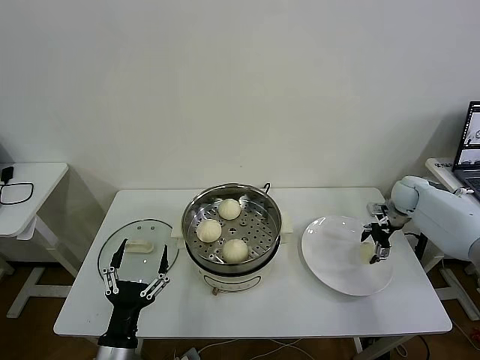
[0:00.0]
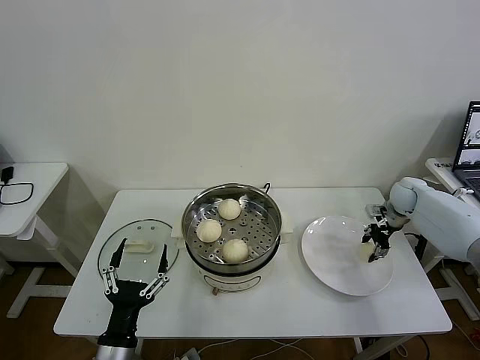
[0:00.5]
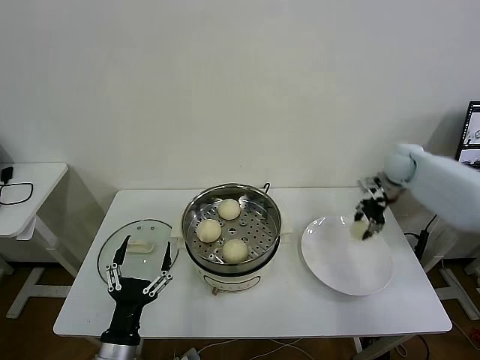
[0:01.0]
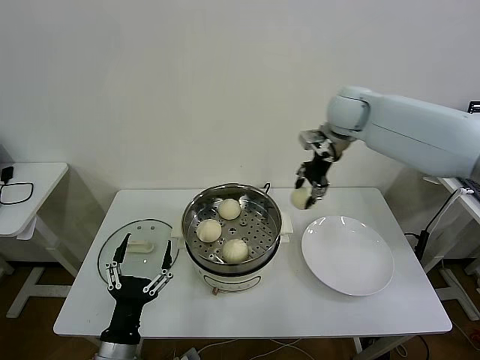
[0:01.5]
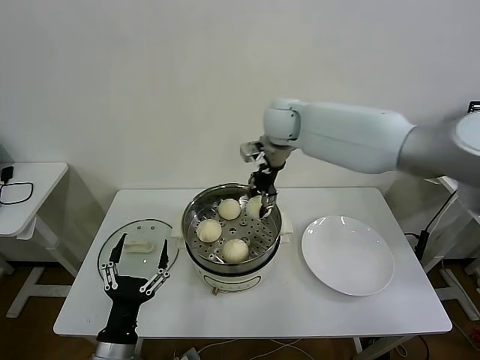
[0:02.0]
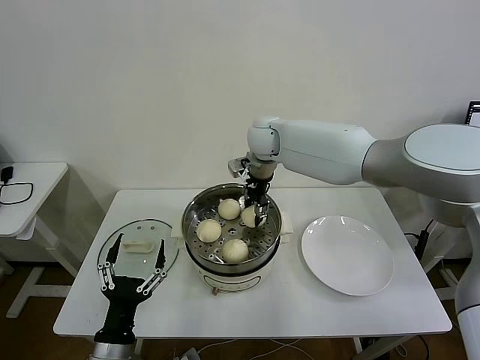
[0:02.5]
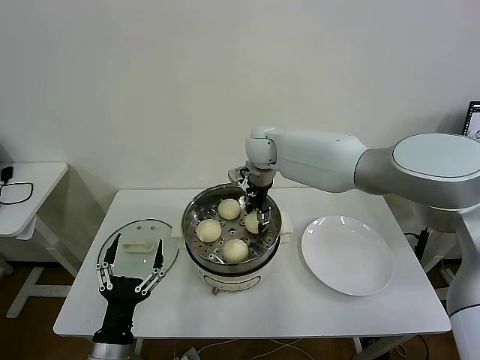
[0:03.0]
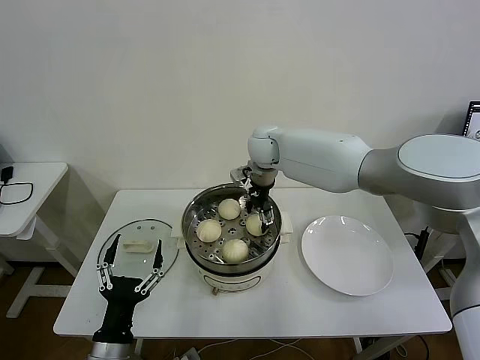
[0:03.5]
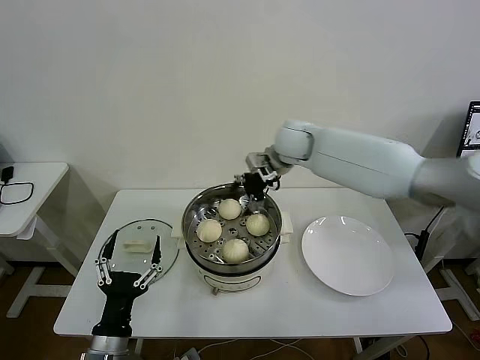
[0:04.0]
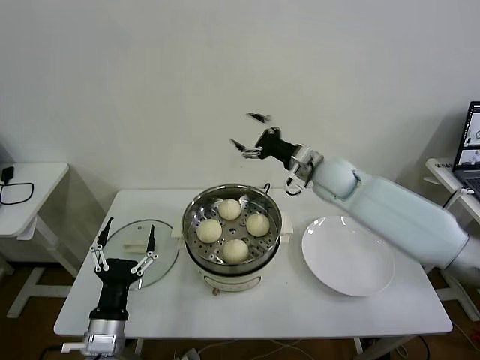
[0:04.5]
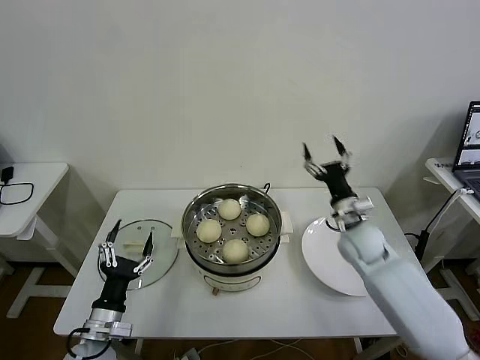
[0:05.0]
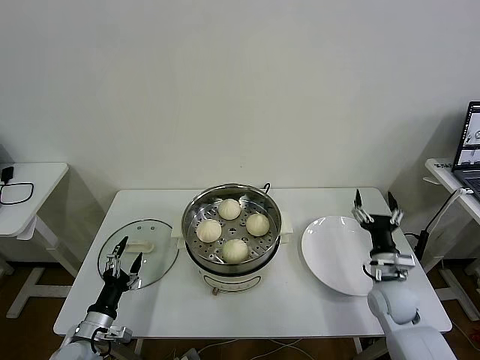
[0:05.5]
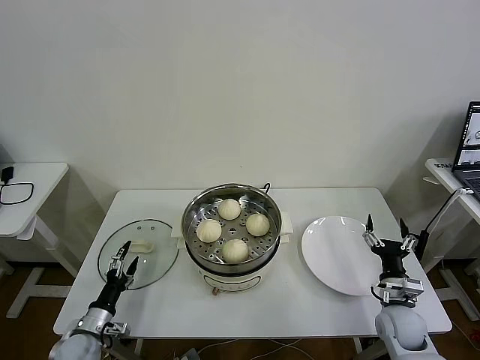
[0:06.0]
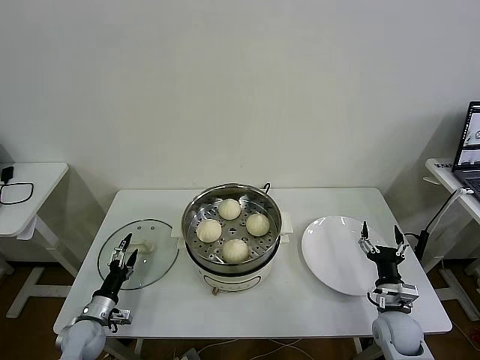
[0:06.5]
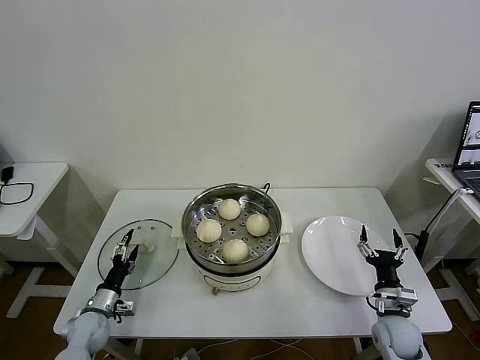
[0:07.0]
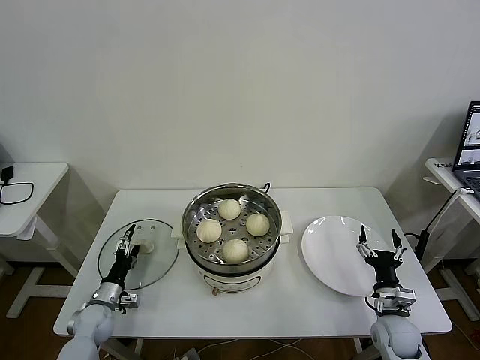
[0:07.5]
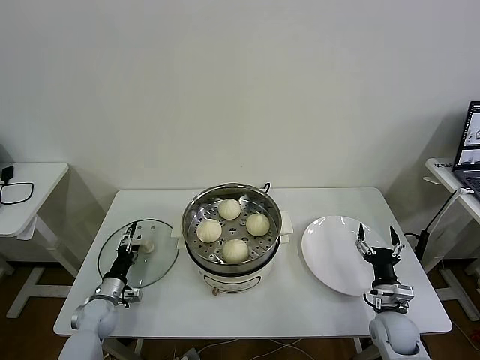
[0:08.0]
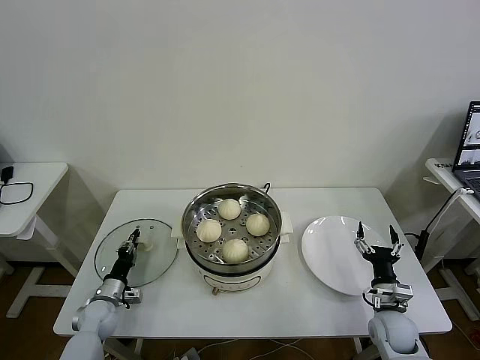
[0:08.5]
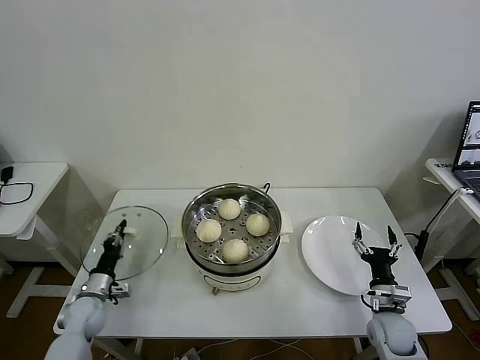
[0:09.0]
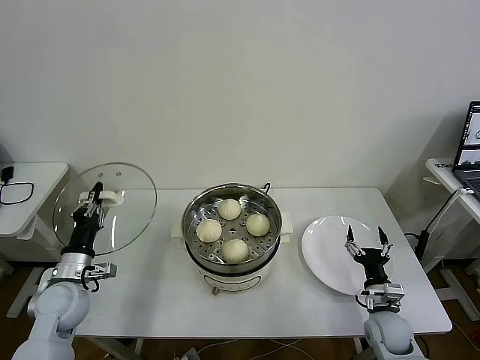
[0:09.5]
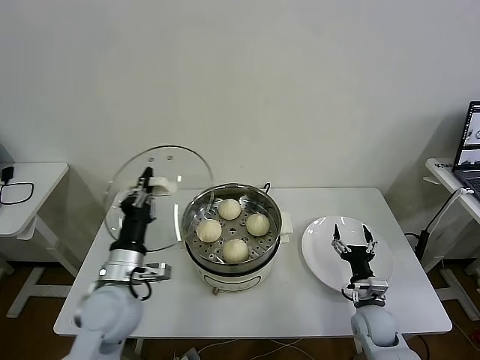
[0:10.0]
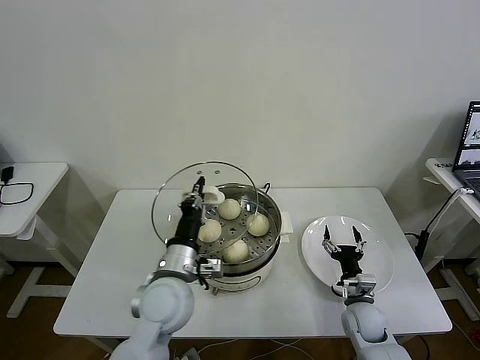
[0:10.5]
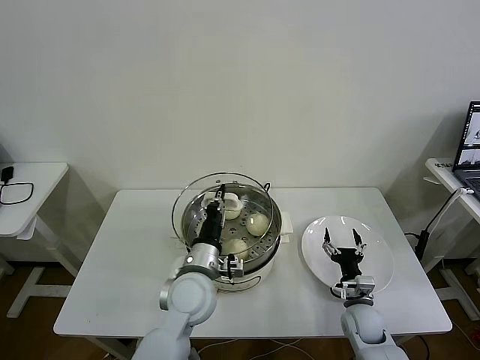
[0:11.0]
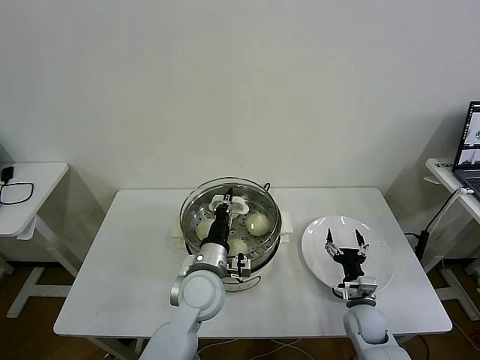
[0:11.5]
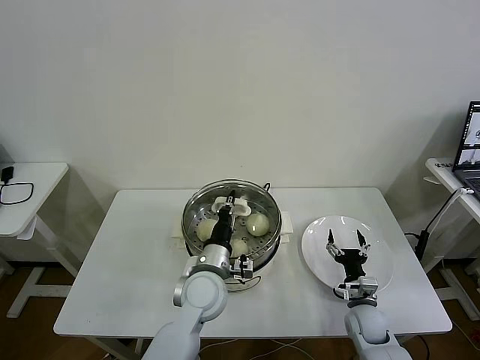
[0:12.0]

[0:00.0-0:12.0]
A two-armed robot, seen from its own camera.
Task of the whole recording: take steamed baozi put them in steamer then cover it.
Step, 0:01.0 to 0:03.5: Place the baozi on the steamer with right gripper.
Step, 0:04.0 to 0:08.5: Grasp the pot lid with left gripper.
0:00.0 to 0:02.0: The right gripper travels to the left and upward by about 40 cm, and closes.
0:02.0 to 0:04.0: The right gripper moves some 5 cm, and opens its fingers.
0:04.0 to 0:06.0: The left gripper heads downward, to the left and forward, covering roughly 20 cm, while the right gripper heads downward, backward and to the right, covering about 50 cm.
0:06.0 to 0:08.0: The left gripper heads forward, covering roughly 10 cm.
0:08.0 to 0:10.0: The left gripper goes approximately 30 cm upward and to the right, and closes up.
0:10.0 to 0:12.0: The left gripper moves to the right, roughly 15 cm.

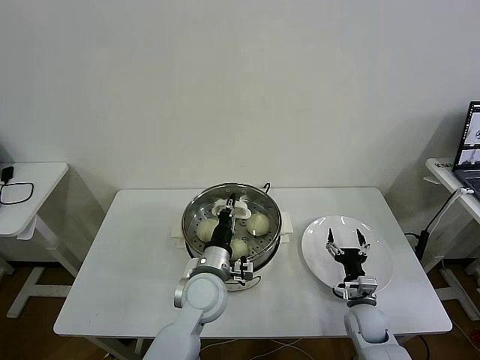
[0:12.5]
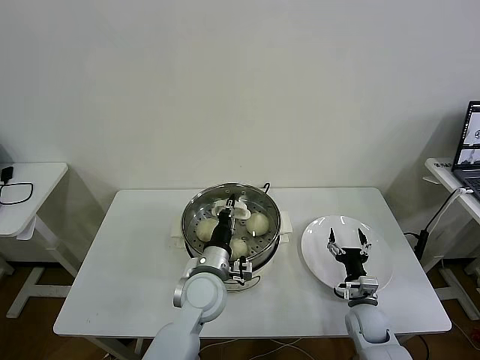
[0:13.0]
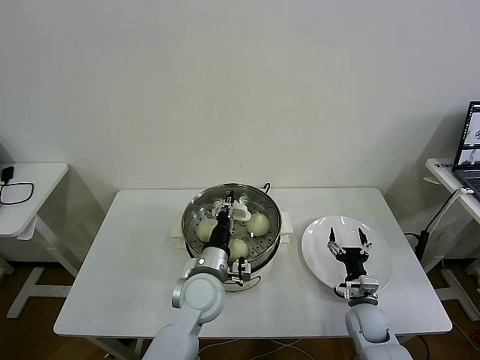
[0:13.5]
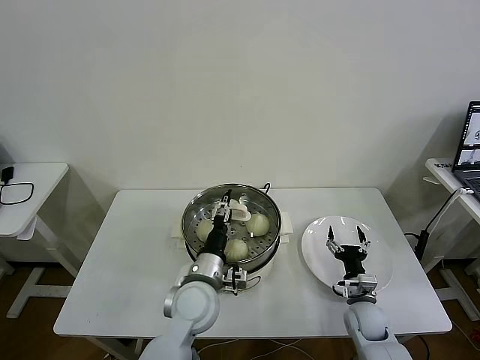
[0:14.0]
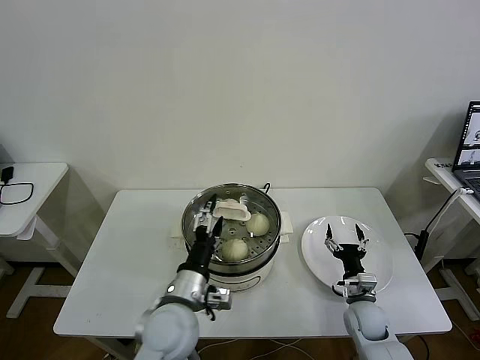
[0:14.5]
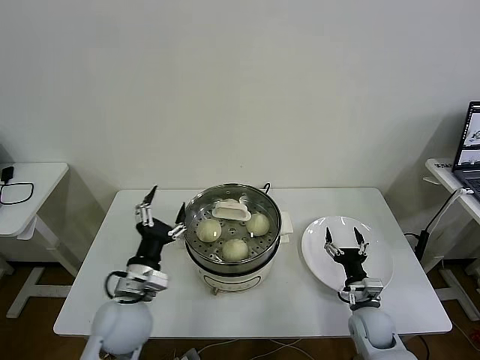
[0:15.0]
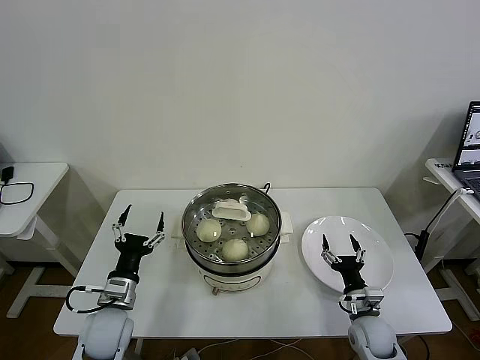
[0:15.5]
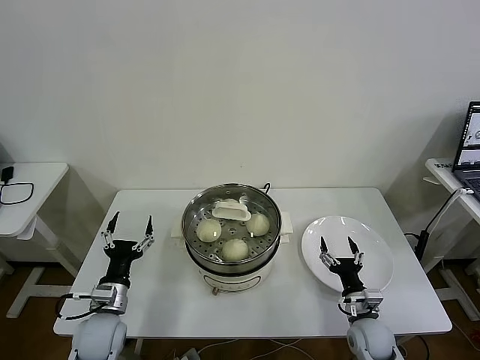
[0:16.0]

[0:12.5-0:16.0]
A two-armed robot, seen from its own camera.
Task of the whole recording: take steamed baozi put them in steamer then cover it.
0:12.5 to 0:14.5: The left gripper heads backward, covering some 5 cm, and opens.
0:14.5 to 0:16.0: The left gripper moves to the left and downward, some 20 cm.
